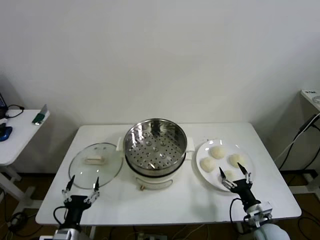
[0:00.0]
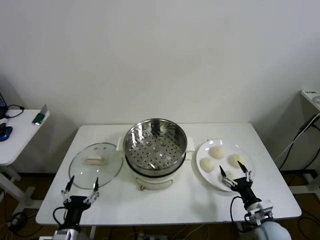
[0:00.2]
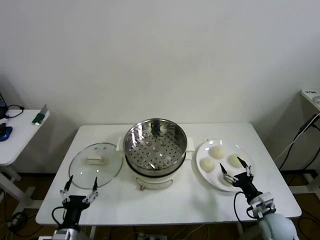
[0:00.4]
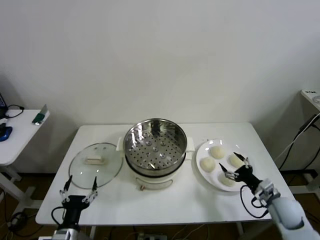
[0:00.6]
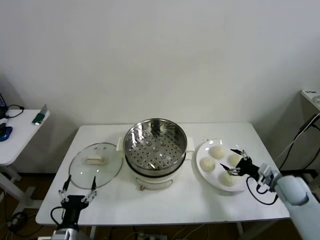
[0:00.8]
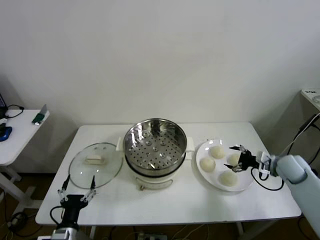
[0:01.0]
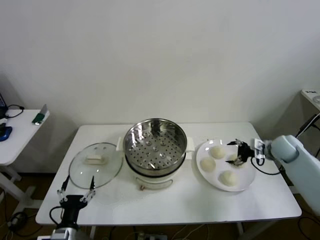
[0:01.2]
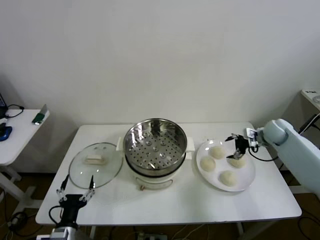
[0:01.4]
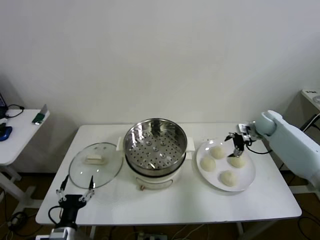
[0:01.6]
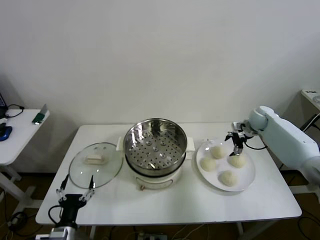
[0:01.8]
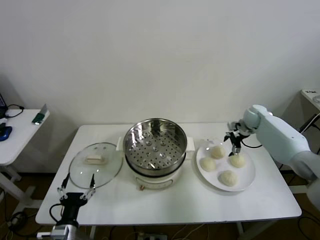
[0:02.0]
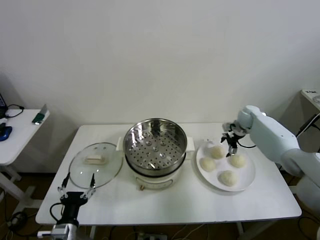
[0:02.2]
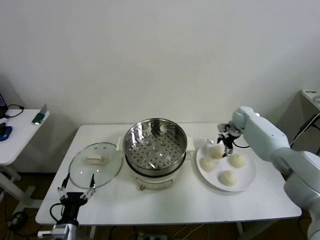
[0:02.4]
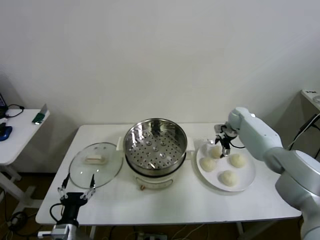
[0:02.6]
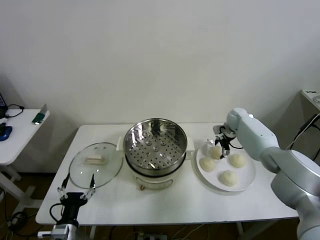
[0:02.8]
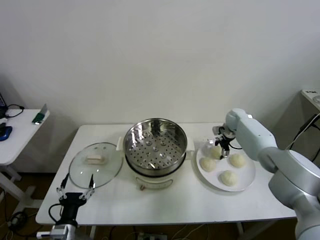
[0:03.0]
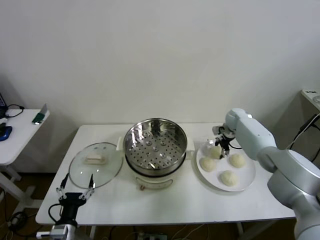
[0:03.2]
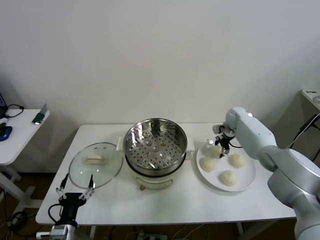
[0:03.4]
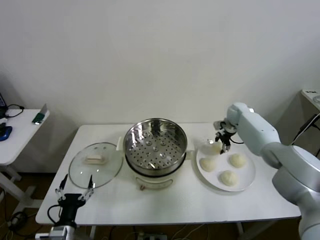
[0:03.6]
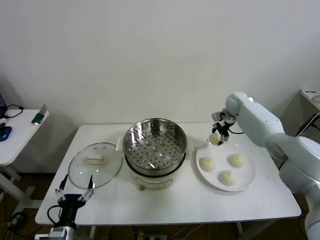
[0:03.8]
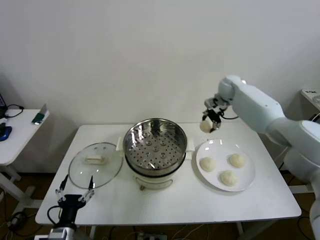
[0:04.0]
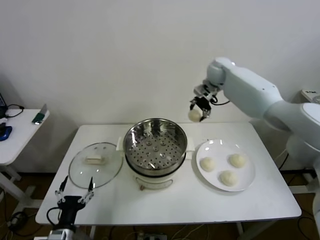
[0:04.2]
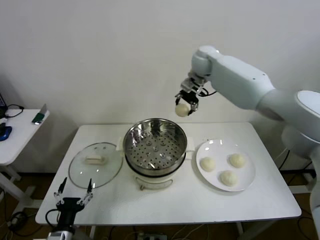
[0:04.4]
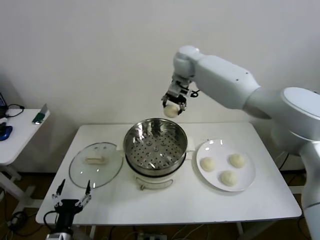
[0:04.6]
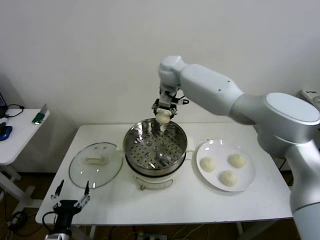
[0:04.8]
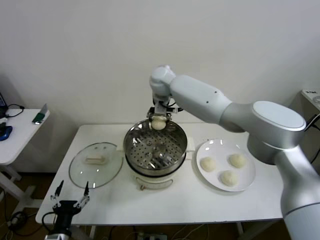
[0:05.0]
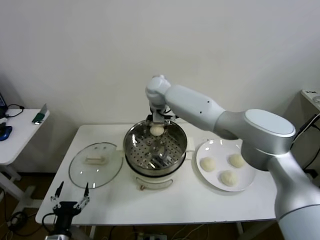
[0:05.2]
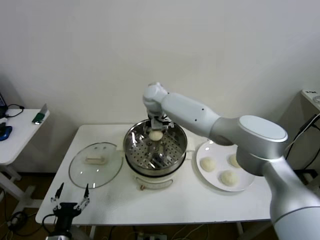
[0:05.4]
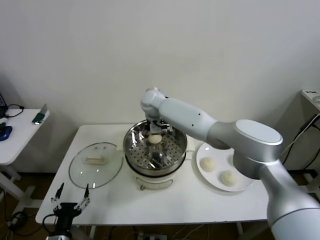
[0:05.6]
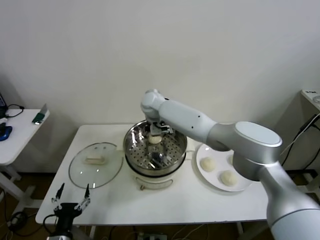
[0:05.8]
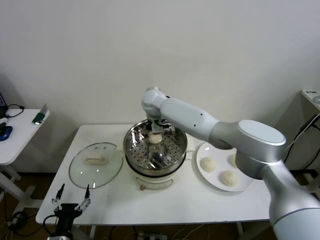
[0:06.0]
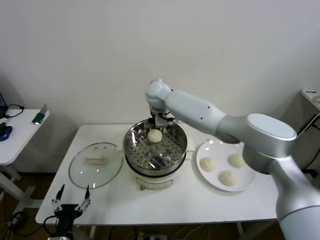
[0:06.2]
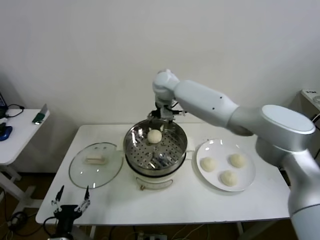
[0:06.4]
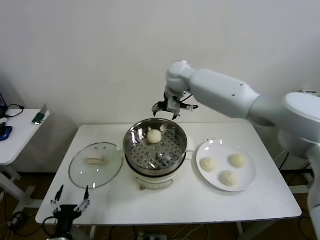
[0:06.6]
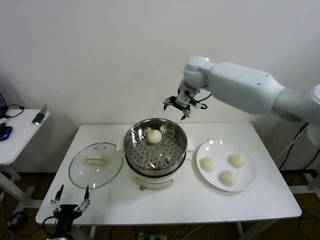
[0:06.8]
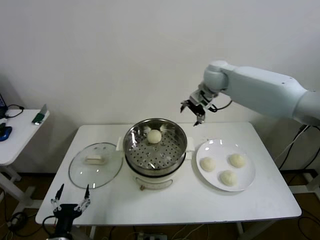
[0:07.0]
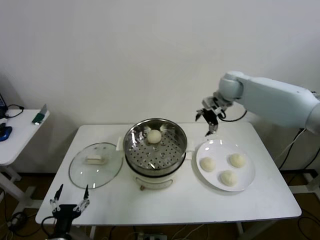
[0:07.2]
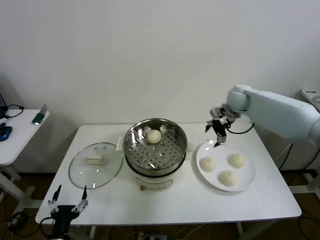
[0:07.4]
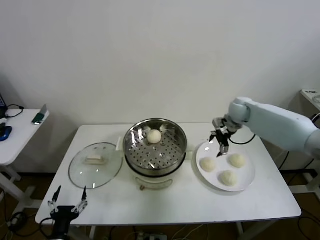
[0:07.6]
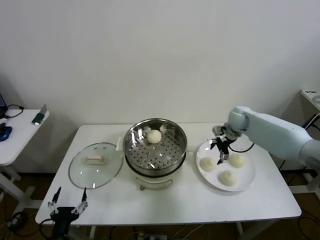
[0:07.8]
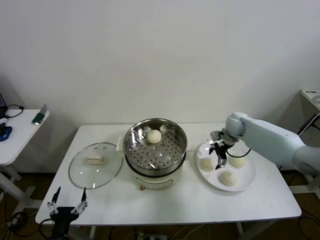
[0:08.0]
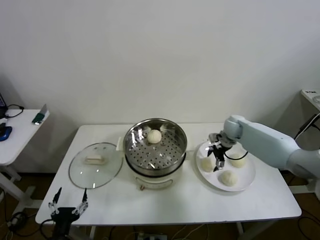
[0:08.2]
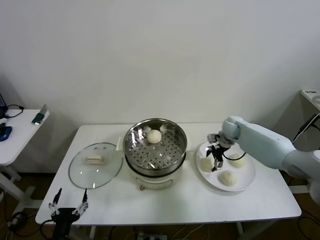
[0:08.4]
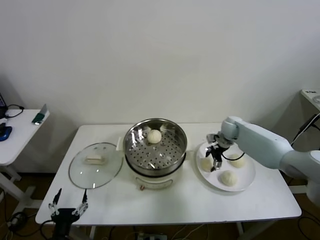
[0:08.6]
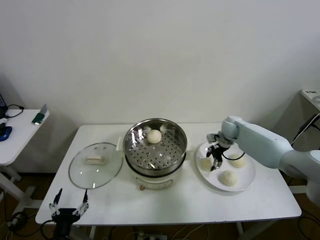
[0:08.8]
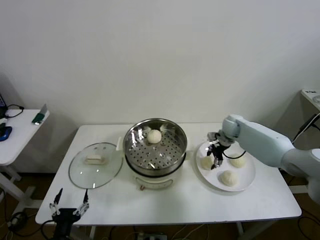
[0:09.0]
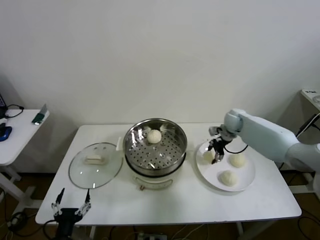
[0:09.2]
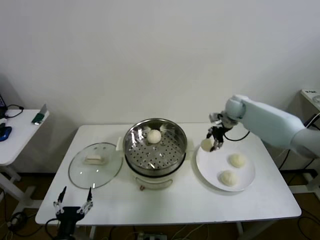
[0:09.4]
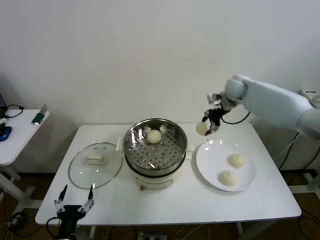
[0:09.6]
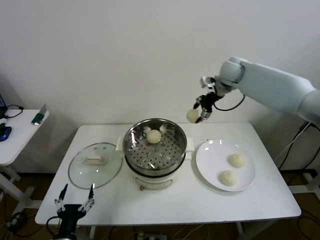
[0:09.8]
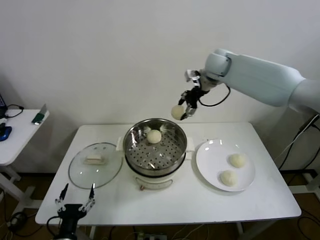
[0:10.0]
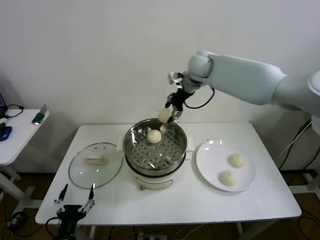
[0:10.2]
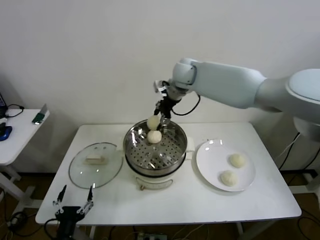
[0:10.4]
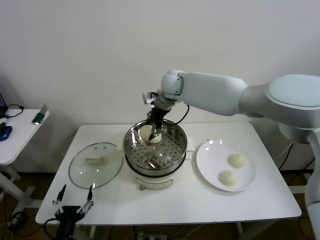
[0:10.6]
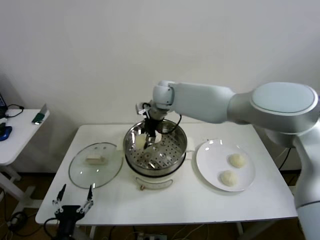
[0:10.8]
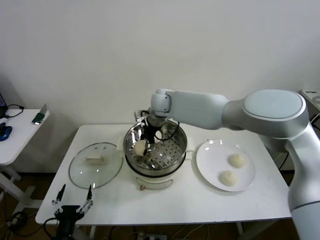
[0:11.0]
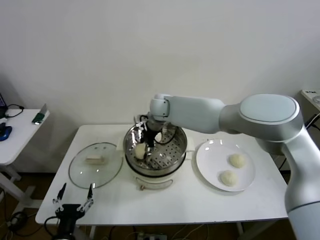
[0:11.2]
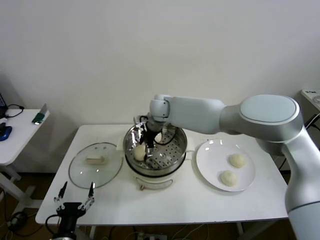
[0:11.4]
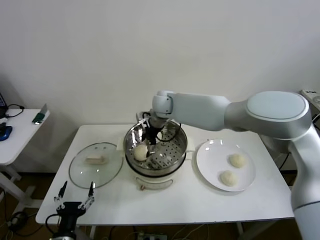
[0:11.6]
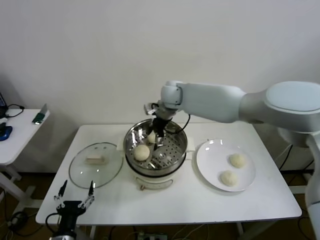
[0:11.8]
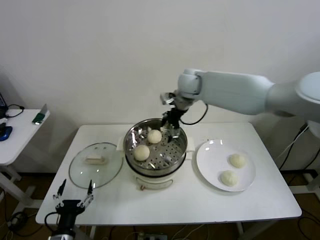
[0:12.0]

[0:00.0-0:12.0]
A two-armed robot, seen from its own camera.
Step, 0:00.0 to 0:03.4: Grasp the baozi in the plate with right gripper.
Step, 0:03.8 to 0:06.2: Place the baozi on the steamer with right gripper.
Step, 0:06.4 to 0:08.8: Grasp the baozi in the plate with right gripper.
Step, 0:09.0 to 0:11.6: Place the baozi on the steamer with right gripper.
0:01.6 to 0:03.0: The right gripper heads to the left, forward and downward, covering roughly 10 cm, and closes up.
0:03.0 to 0:04.4: The right gripper is displaced upward and to the left by roughly 35 cm.
0:04.4 to 0:06.0: The right gripper goes some 20 cm to the left and downward, and opens.
0:06.0 to 0:07.6: The right gripper shifts some 35 cm to the right.
0:07.6 to 0:09.0: The right gripper goes approximately 5 cm downward, and closes up.
0:09.0 to 0:10.4: The right gripper travels to the left and upward by roughly 35 cm.
0:10.4 to 0:12.0: The right gripper moves to the right, roughly 5 cm, and opens its fingers.

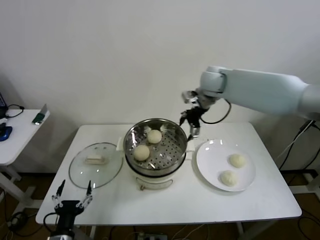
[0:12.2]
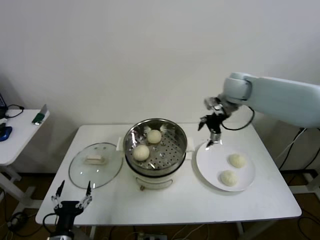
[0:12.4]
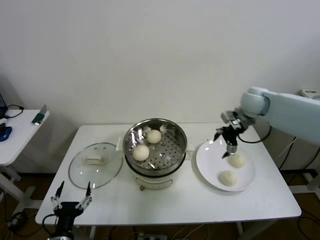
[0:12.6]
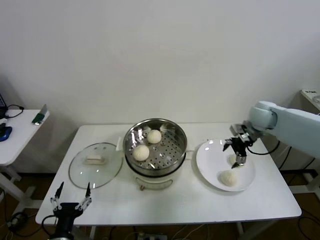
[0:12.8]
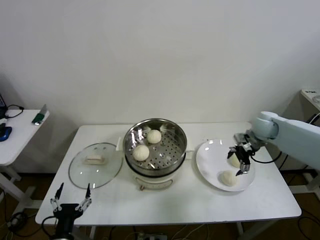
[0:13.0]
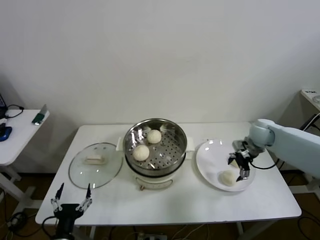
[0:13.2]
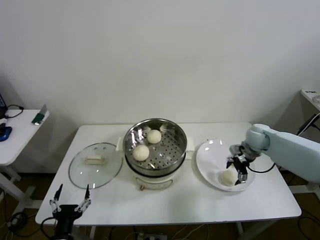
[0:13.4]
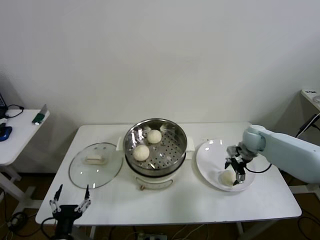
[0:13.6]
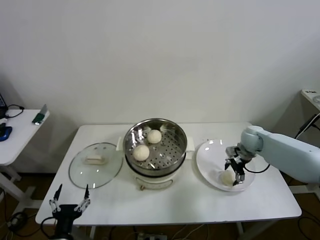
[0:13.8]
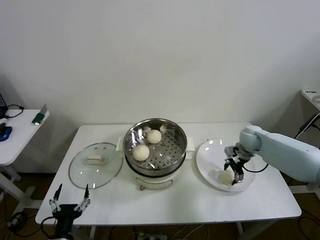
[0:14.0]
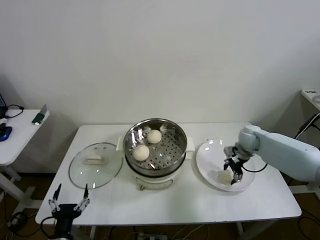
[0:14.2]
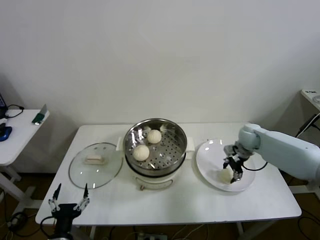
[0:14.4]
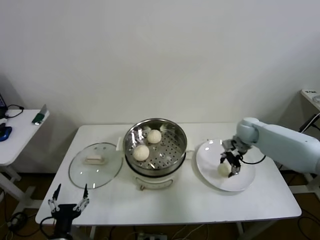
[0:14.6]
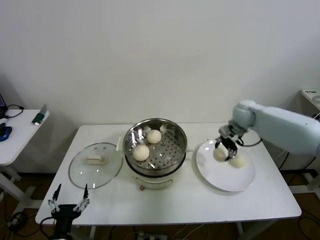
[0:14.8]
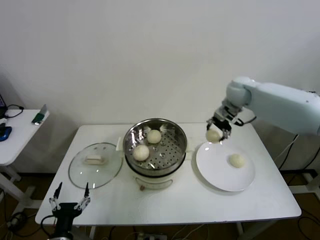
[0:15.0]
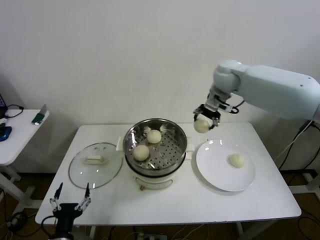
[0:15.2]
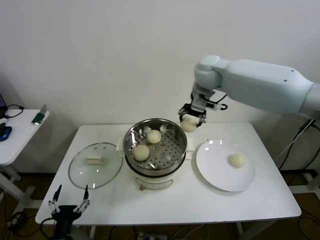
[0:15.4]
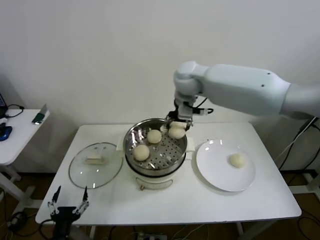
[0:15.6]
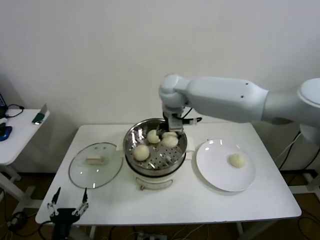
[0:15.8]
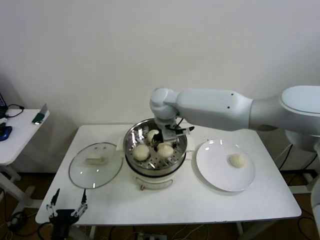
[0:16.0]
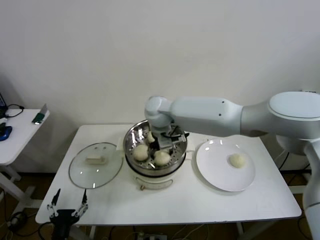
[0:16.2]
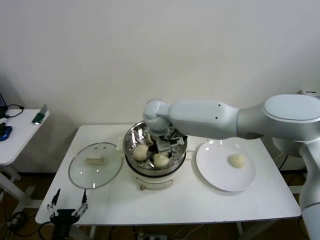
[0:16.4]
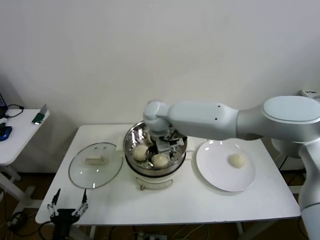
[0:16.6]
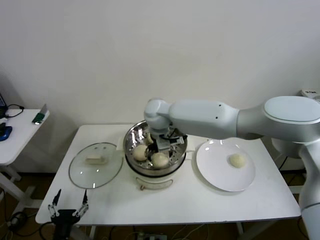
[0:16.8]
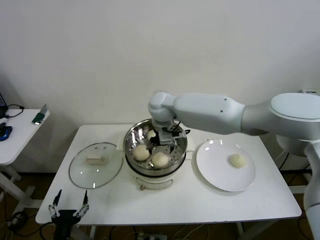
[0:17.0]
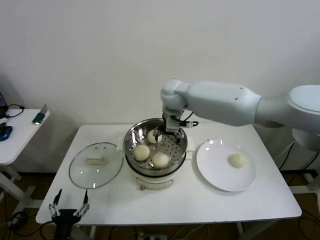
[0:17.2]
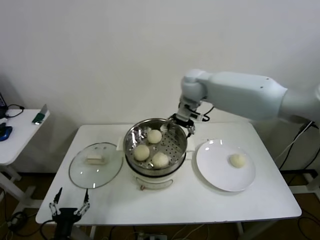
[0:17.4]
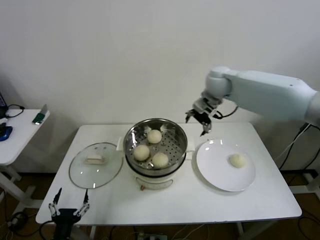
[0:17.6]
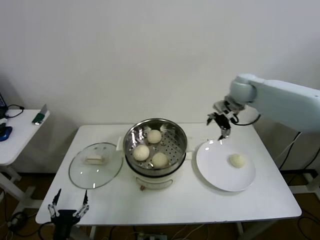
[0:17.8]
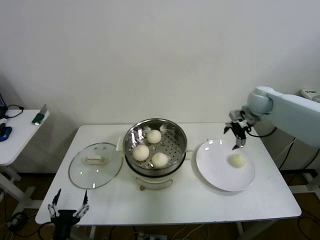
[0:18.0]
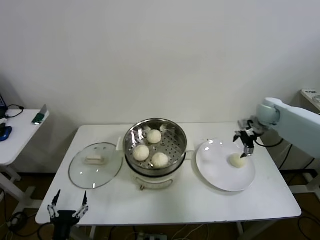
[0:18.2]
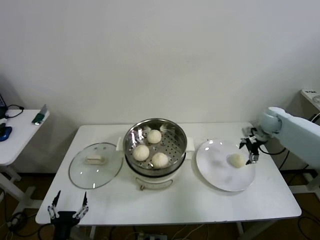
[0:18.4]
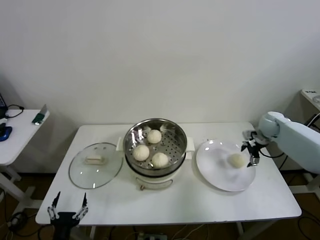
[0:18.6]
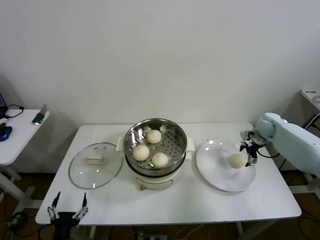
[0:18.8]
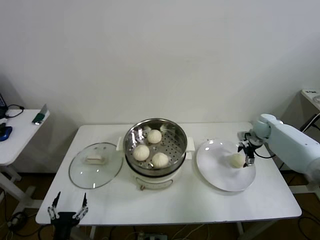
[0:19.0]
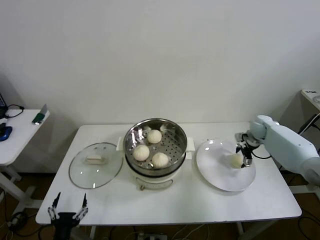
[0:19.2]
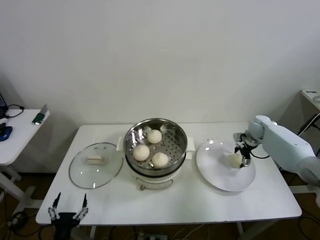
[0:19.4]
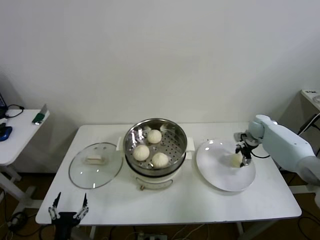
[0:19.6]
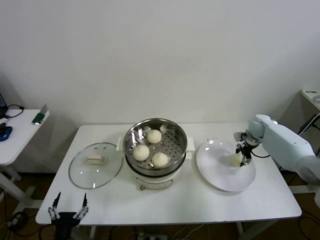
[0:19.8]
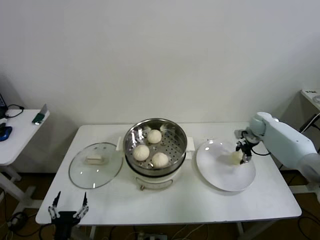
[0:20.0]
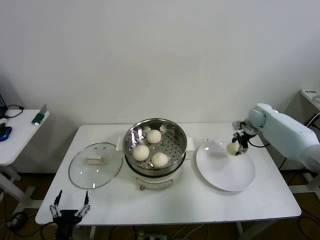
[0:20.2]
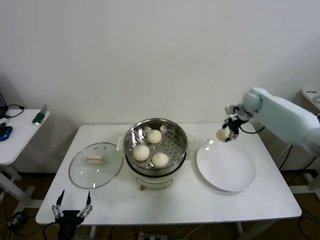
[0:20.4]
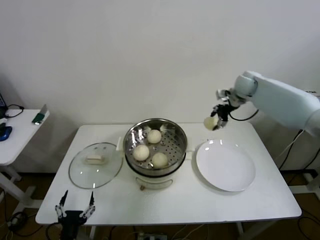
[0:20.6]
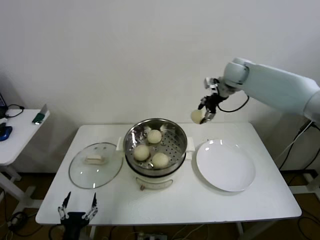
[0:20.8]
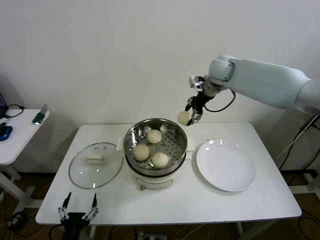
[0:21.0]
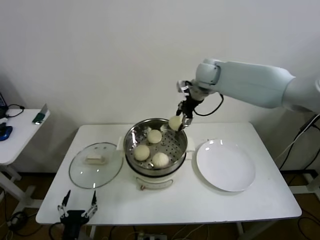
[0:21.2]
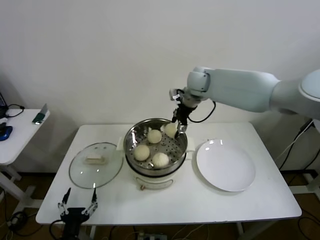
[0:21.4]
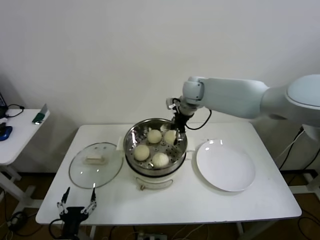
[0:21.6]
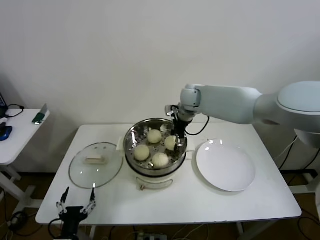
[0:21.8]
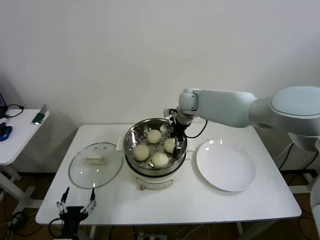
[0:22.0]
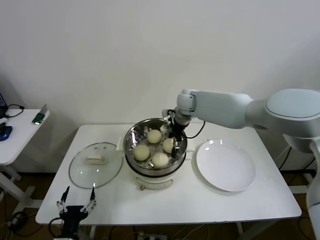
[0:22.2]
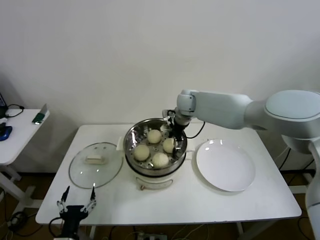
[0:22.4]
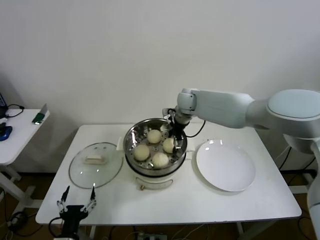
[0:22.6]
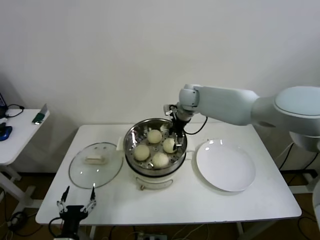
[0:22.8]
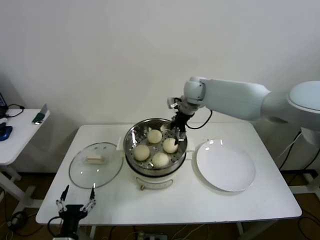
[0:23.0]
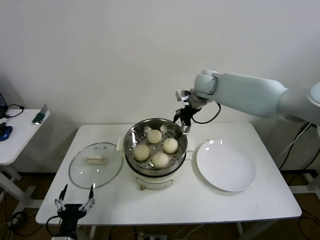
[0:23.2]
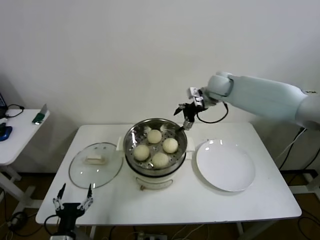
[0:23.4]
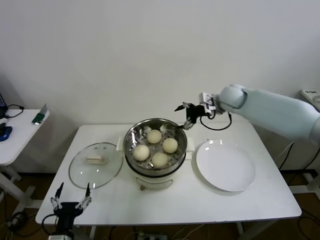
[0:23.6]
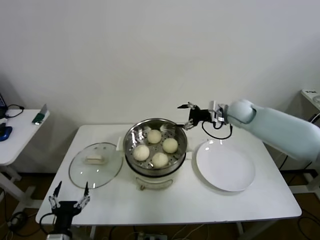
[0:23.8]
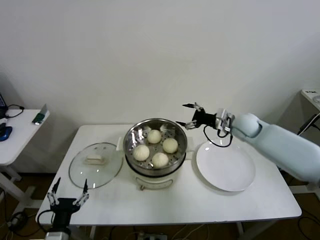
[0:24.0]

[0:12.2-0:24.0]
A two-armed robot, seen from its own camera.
Step, 0:12.2 to 0:14.0: Grasp the baozi in the plate with right gripper.
Step, 0:14.2 to 0:17.0: Place the baozi on the steamer with right gripper.
Step, 0:17.2 to 0:19.8: Grasp the baozi in the plate with right gripper.
Step, 0:20.0 to 0:23.0: Place the baozi on the steamer with right gripper.
0:12.2 to 0:13.6: The right gripper moves downward and to the right, some 25 cm.
0:13.6 to 0:15.2: The right gripper goes roughly 30 cm upward and to the left, and closes.
0:15.2 to 0:16.6: The right gripper is displaced to the left and downward by roughly 25 cm, and opens its fingers.
0:16.6 to 0:18.2: The right gripper goes roughly 40 cm to the right.
0:18.2 to 0:19.6: The right gripper is displaced downward by approximately 10 cm, and closes its fingers.
0:19.6 to 0:21.0: The right gripper heads upward and to the left, covering roughly 35 cm.
0:21.0 to 0:22.6: The right gripper shifts approximately 15 cm downward and to the left, and opens its fingers.
0:22.6 to 0:24.0: The right gripper is displaced to the right and backward by about 20 cm.